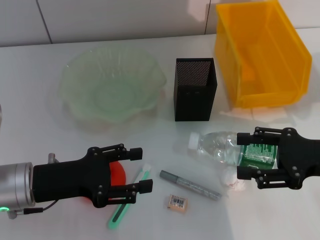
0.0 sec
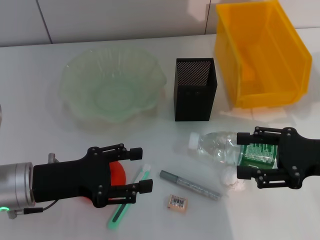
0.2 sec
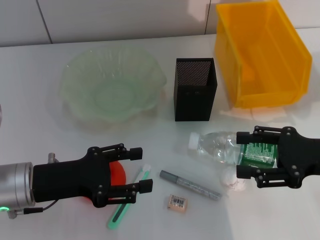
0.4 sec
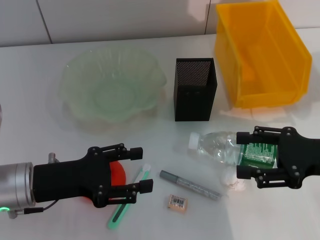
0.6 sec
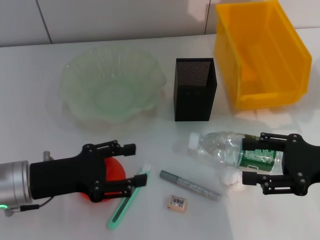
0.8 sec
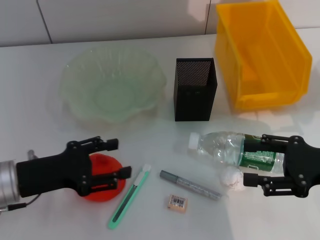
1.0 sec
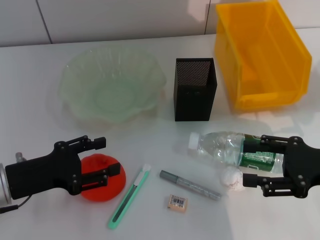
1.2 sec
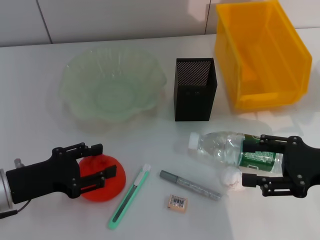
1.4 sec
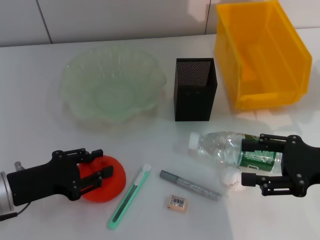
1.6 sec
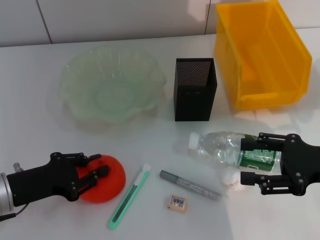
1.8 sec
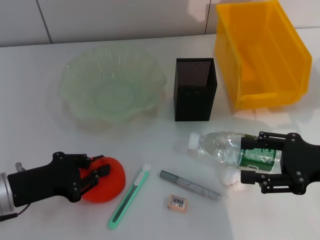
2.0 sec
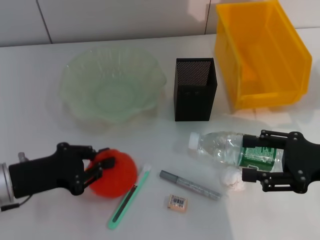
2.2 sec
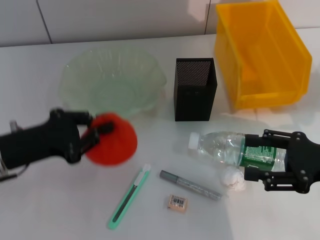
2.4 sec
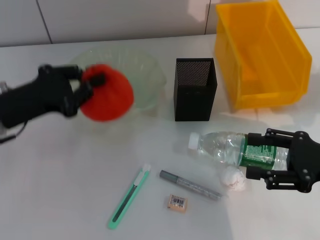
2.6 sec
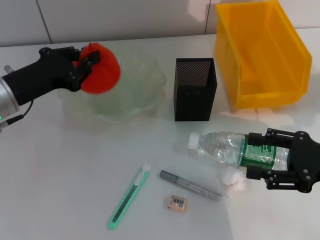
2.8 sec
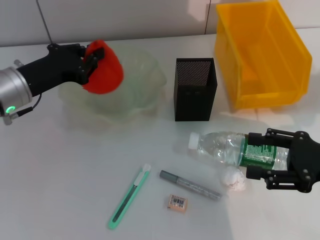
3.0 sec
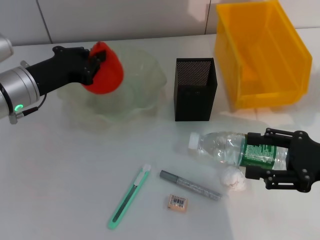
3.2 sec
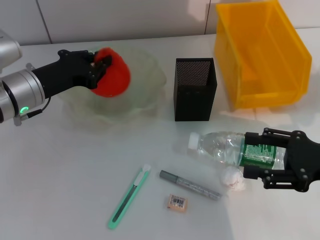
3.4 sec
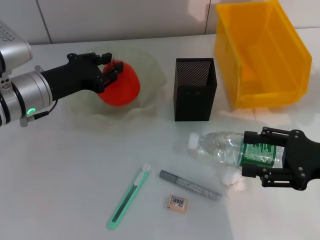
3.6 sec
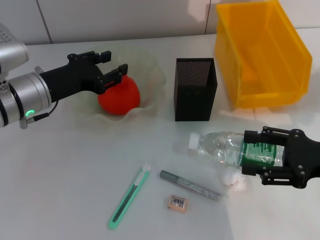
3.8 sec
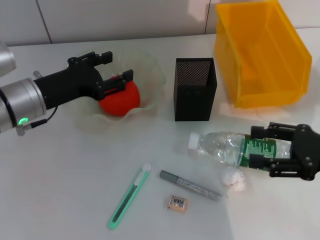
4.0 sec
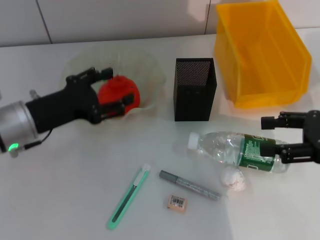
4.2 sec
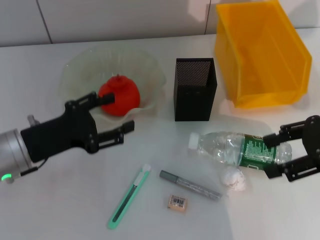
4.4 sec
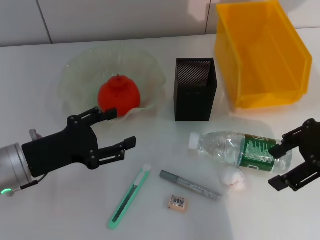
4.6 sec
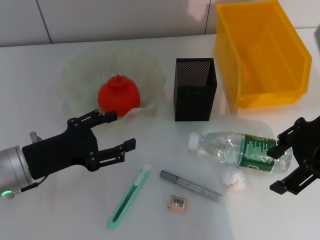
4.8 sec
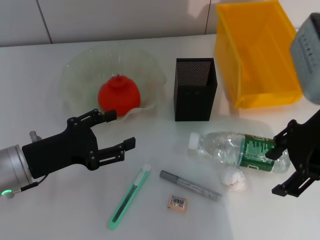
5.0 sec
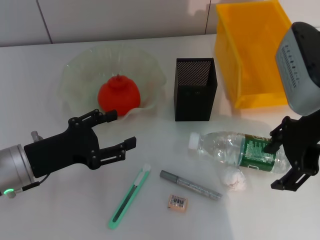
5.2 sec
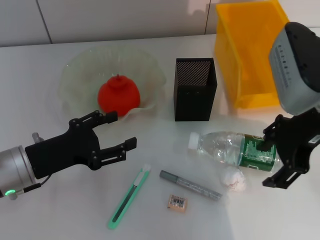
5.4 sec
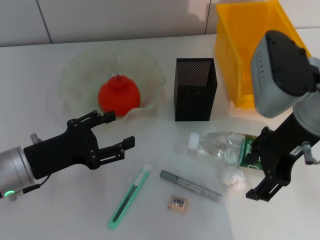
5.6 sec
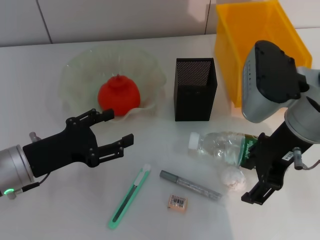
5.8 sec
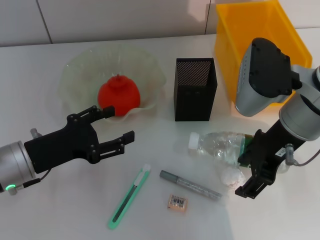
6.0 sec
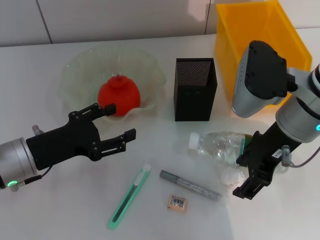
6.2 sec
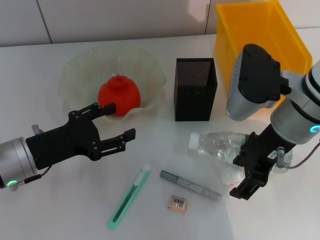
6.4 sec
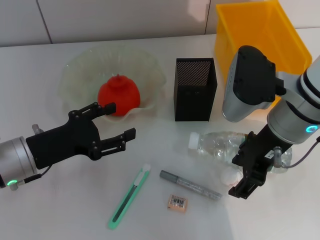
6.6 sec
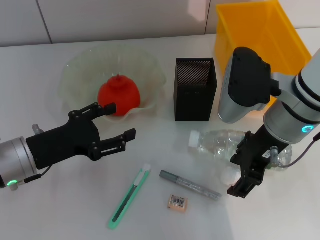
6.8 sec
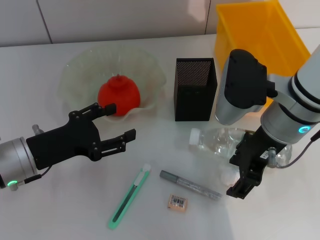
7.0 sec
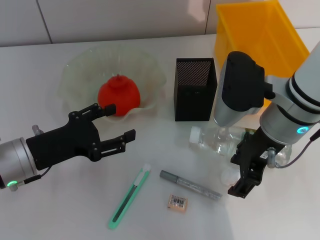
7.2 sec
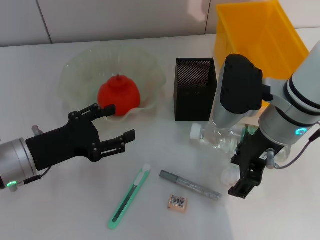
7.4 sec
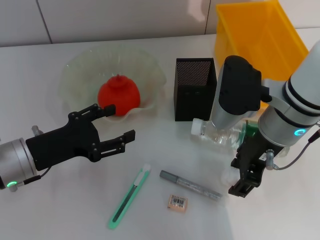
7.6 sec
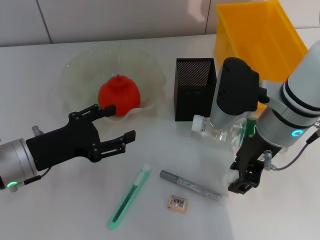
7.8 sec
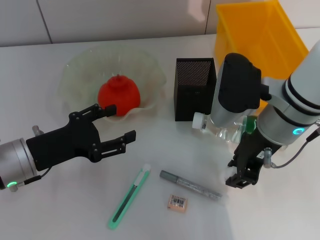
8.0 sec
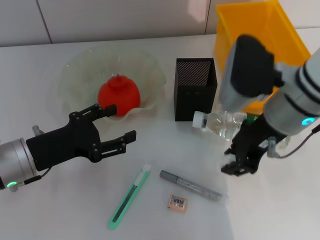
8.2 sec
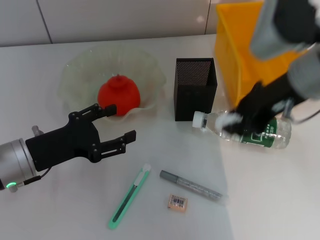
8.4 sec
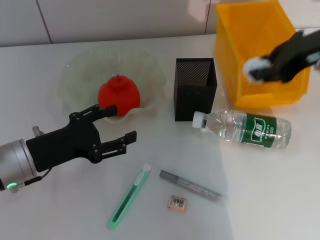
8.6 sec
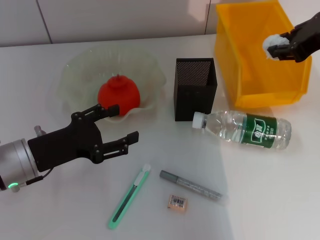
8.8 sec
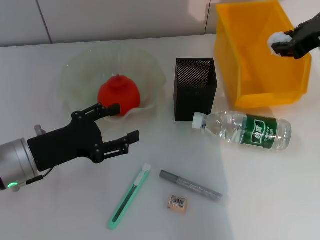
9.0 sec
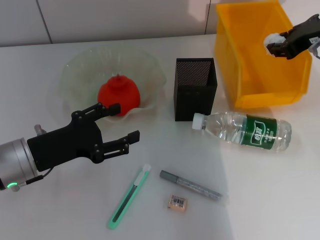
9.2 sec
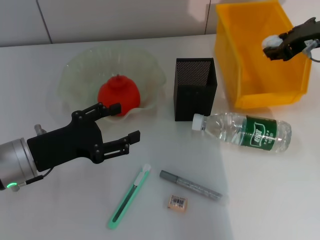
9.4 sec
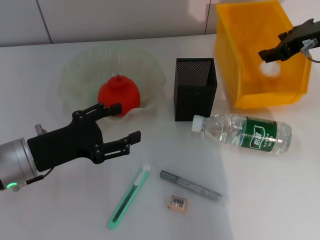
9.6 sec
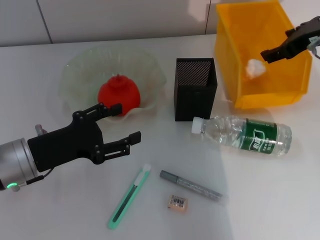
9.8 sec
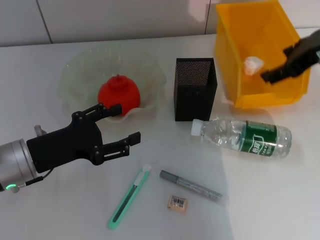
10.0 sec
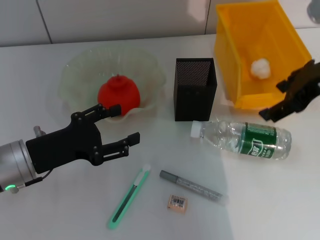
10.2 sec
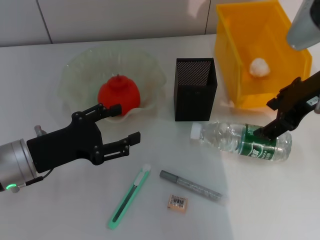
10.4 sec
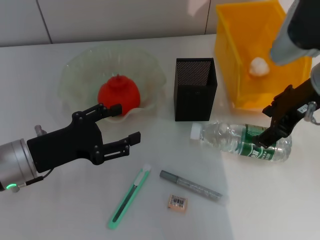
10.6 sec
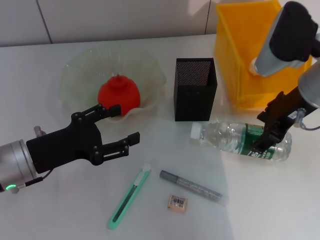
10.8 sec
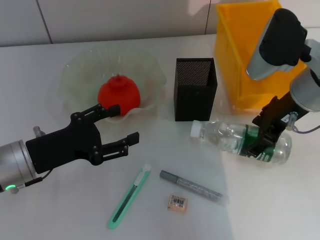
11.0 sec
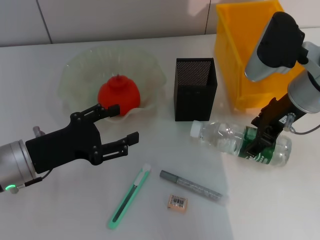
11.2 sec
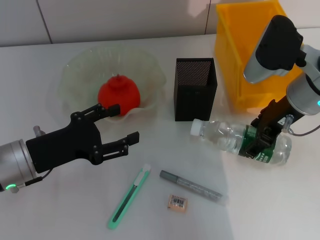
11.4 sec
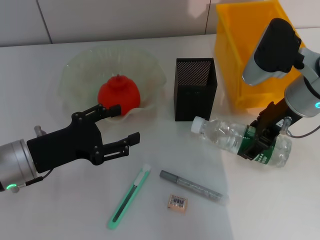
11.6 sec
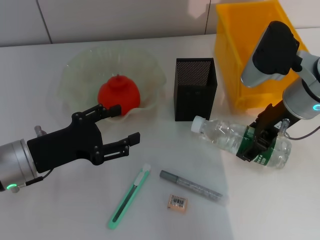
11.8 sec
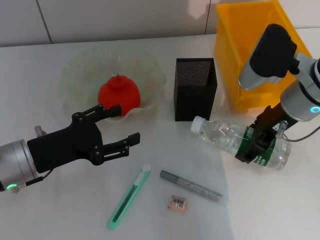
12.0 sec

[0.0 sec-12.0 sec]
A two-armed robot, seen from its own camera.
Step, 0.0 sec to 1.8 sec: Grab the orange with the left hand.
Step, 2.0 sec to 3.6 sec: Place the orange into the fruit bowl with the left hand.
Step, 4.0 sec to 7.8 sec: Grab the paper ball with the right hand.
Step, 8.0 sec to 9.8 sec: Place the paper ball into the trash can with the right hand.
0.0 sec to 1.6 sec: The grippers stay close to where they were, moving slightly.
1.6 sec to 3.0 sec: The left gripper goes roughly 15 cm forward and upward, and closes up.
3.0 sec to 4.4 sec: The left gripper heads backward, covering about 10 cm, and opens up. The right gripper moves upward, roughly 10 cm.
4.4 sec to 6.0 sec: The right gripper moves to the left, approximately 15 cm.
6.0 sec to 7.6 sec: The grippers move only a little.
7.6 sec to 9.0 sec: The right gripper heads to the right, upward and forward, covering roughly 15 cm, and closes up.
9.0 sec to 10.4 sec: The right gripper moves about 5 cm, and opens up.
10.4 sec to 12.0 sec: The right gripper moves downward, about 5 cm.

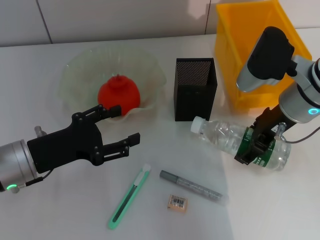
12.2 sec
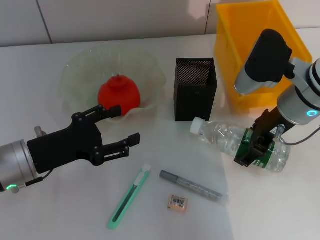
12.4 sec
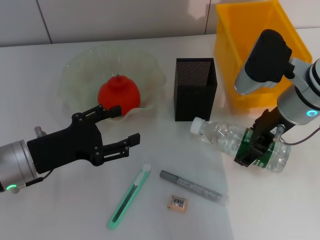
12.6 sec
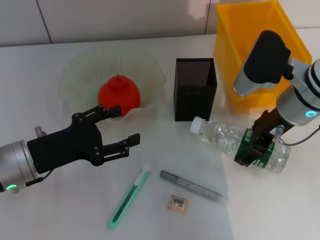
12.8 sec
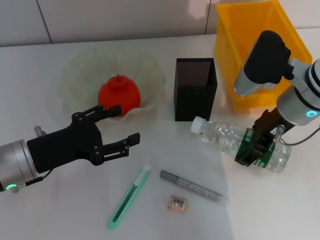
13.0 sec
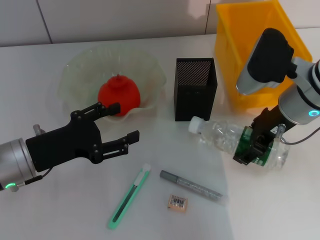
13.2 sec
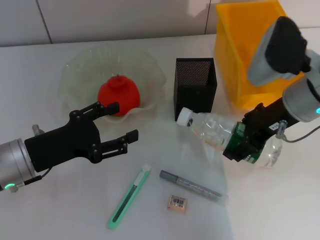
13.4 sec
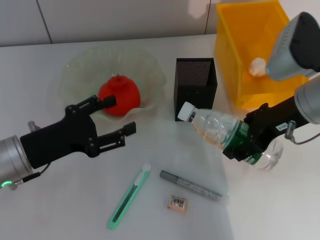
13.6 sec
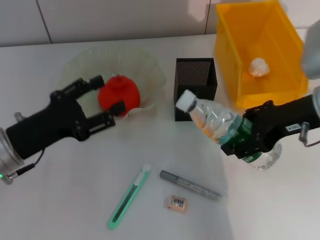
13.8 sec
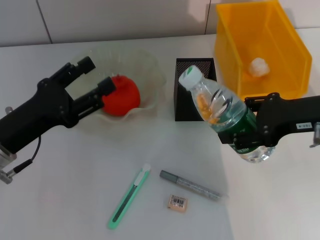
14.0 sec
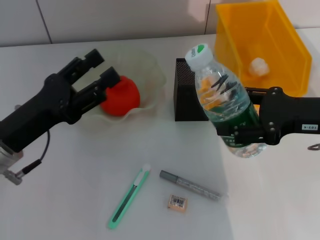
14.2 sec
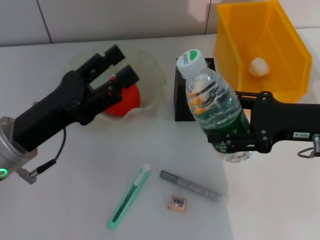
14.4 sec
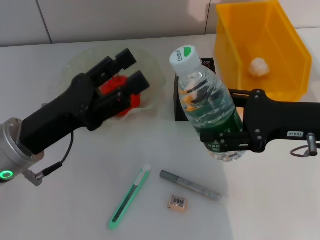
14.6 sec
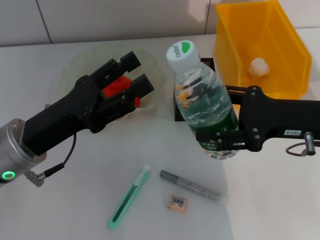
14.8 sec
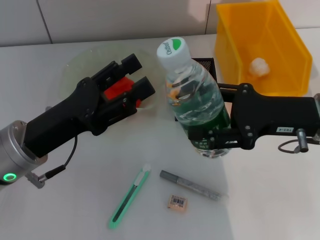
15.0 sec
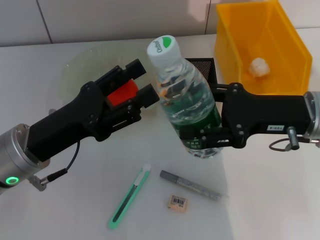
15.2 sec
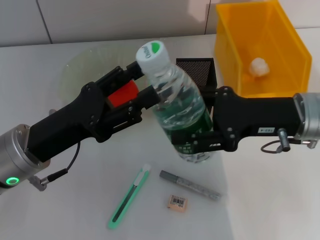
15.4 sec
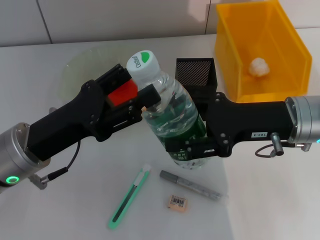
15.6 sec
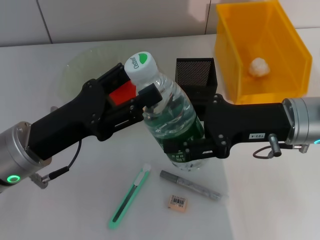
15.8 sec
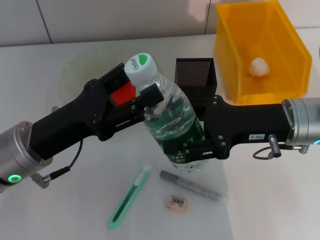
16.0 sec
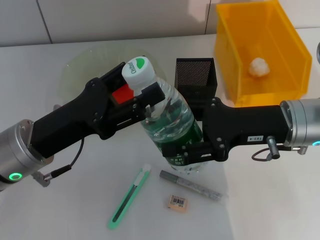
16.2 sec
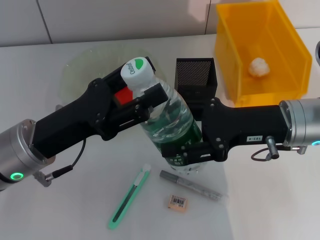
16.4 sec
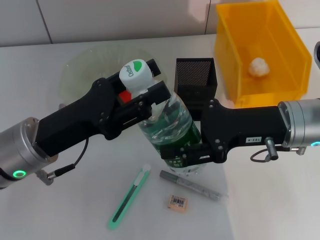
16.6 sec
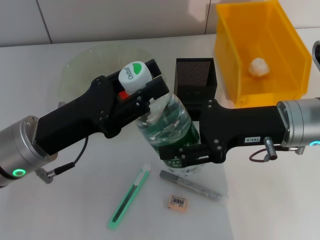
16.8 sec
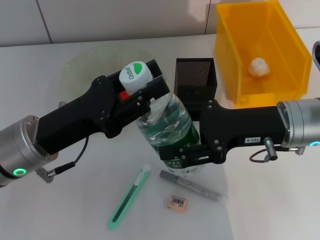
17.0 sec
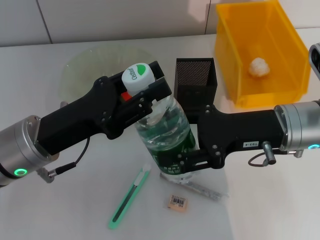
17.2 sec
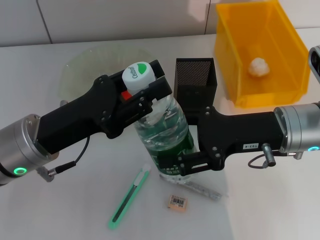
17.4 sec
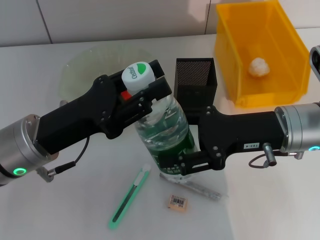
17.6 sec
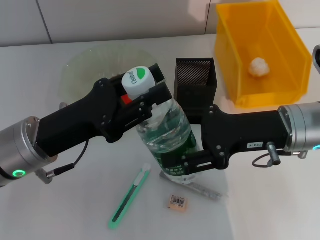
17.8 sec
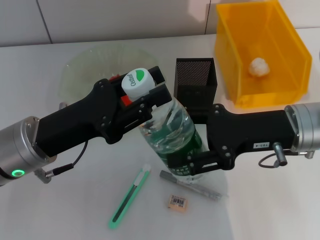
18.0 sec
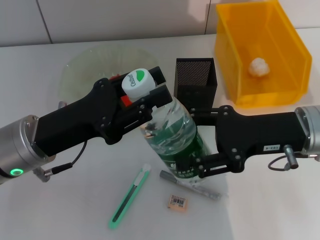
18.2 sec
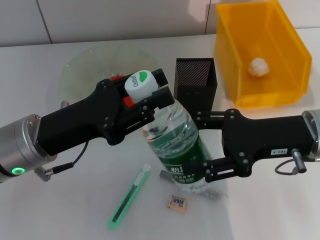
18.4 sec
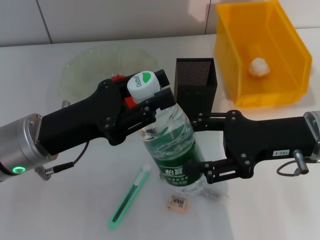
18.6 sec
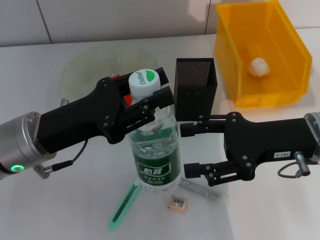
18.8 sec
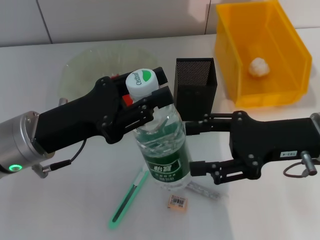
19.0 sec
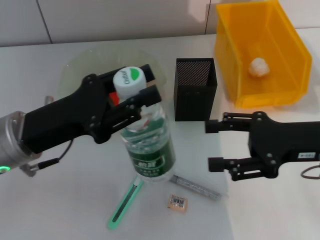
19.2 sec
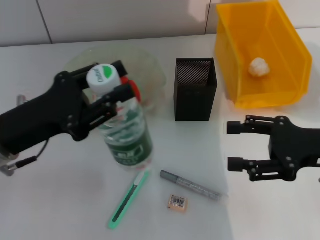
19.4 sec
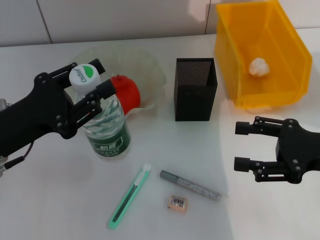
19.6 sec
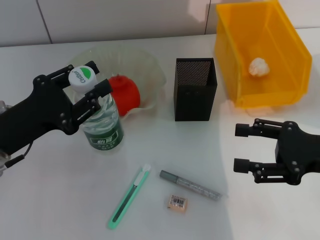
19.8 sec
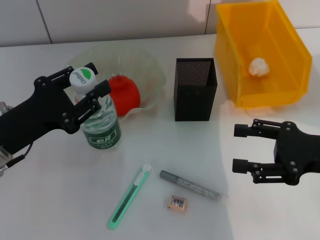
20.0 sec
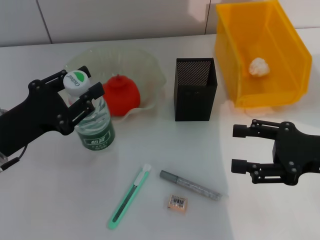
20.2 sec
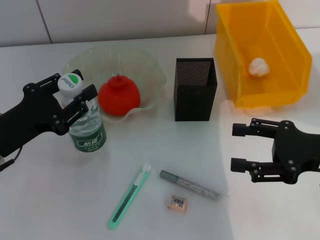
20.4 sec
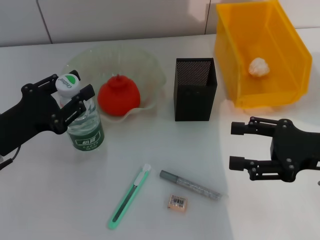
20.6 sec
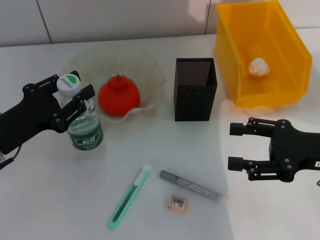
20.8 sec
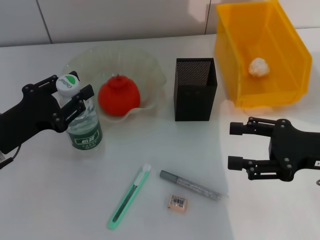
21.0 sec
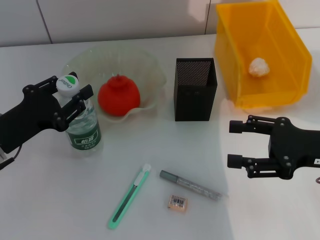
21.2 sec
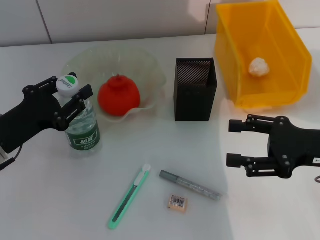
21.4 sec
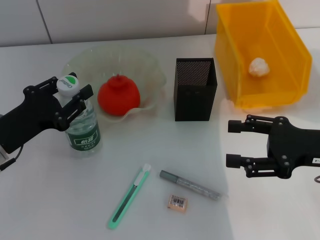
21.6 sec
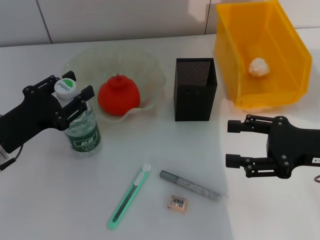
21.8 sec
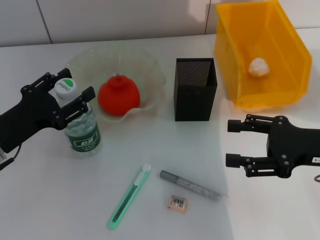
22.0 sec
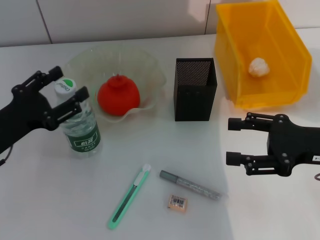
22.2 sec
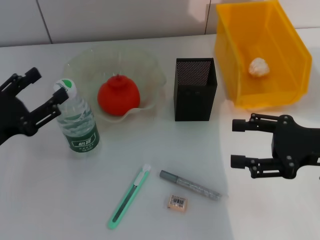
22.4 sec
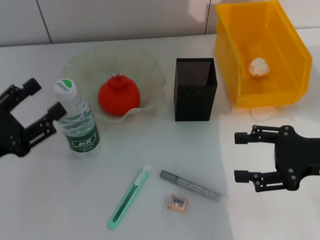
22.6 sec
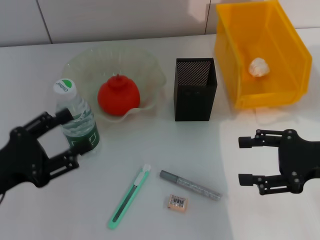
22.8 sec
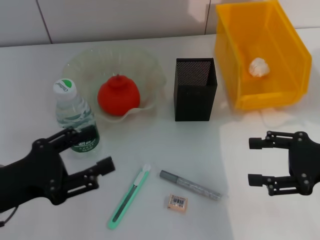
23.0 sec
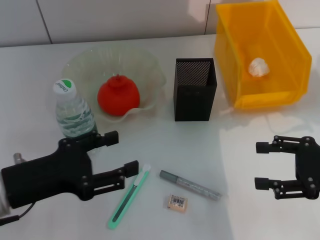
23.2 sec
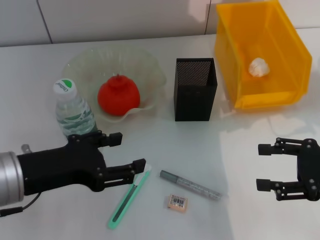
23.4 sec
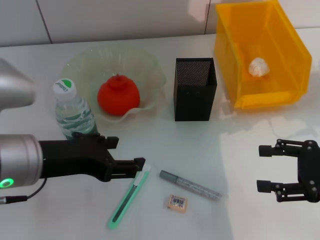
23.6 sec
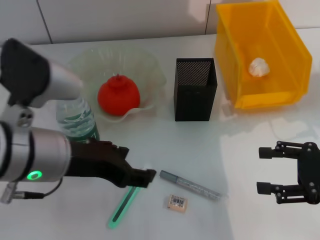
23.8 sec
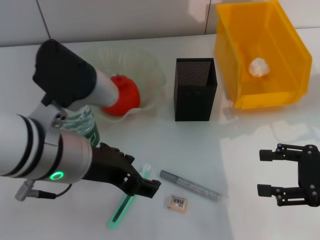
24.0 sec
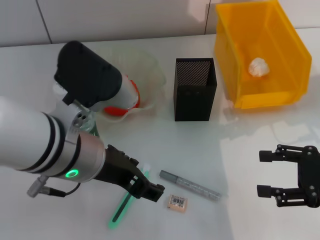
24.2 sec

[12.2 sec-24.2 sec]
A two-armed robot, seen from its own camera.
Step, 13.2 sec to 18.6 sec: Pass the water bottle from the right hand to the left hand.
Step, 18.8 sec to 22.0 sec: Place the water bottle on the table with the left hand.
12.2 sec to 13.8 sec: The right gripper ends up about 5 cm from where it was.
15.2 sec to 16.6 sec: There are only small adjustments of the grippers.
16.6 sec to 18.2 sec: The left gripper closes.
18.2 sec to 19.8 sec: The left gripper shifts about 5 cm to the left; the right gripper heads to the right, covering some 5 cm.
19.8 sec to 21.2 sec: The grippers stay close to where they were, moving slightly.
21.2 sec to 22.6 sec: The left gripper shifts about 5 cm backward, and opens.
22.6 sec to 24.2 sec: The left gripper travels to the right and upward by roughly 20 cm.
